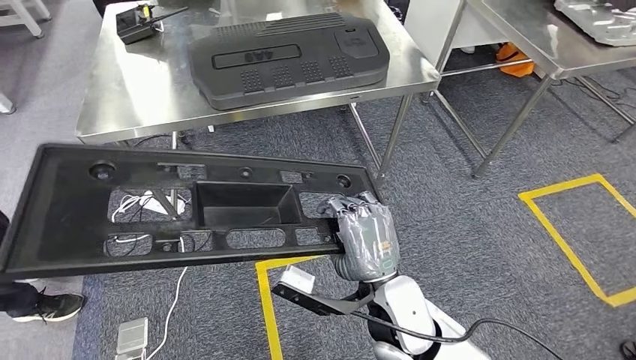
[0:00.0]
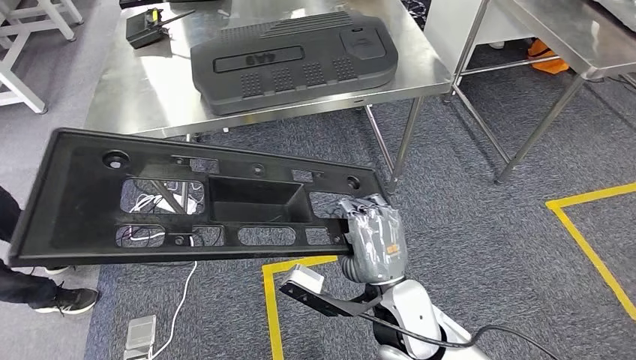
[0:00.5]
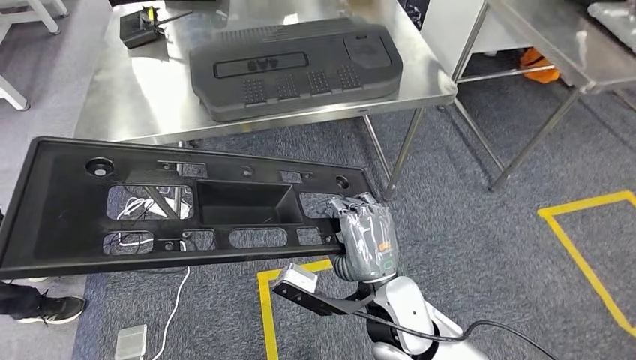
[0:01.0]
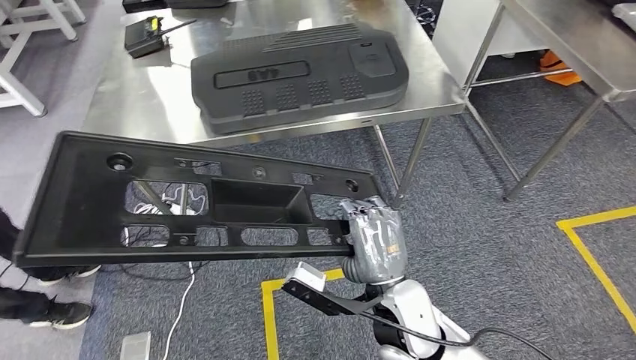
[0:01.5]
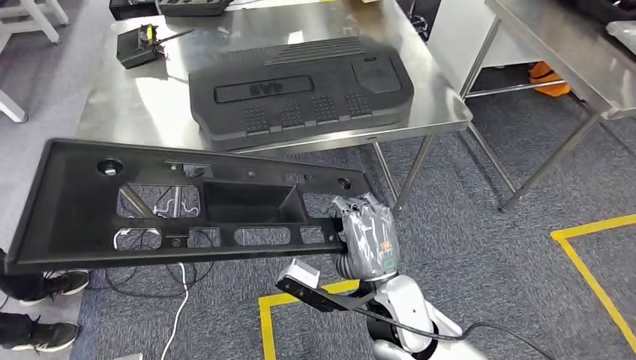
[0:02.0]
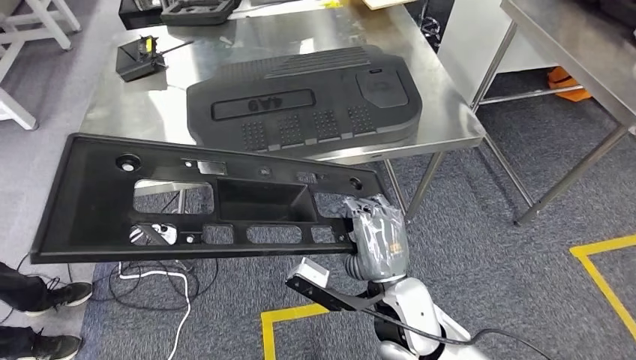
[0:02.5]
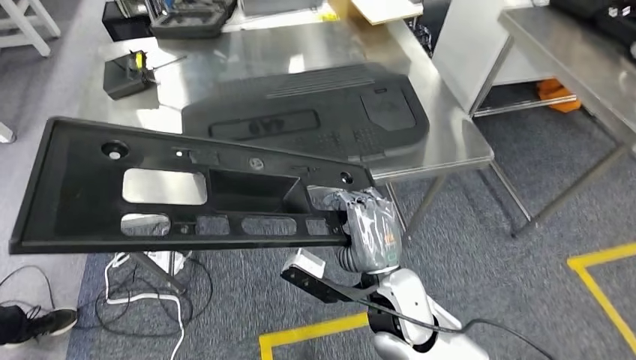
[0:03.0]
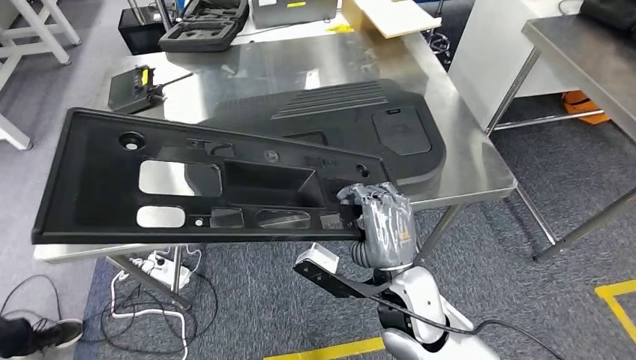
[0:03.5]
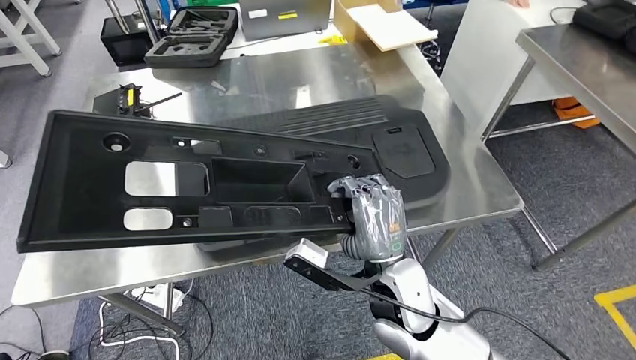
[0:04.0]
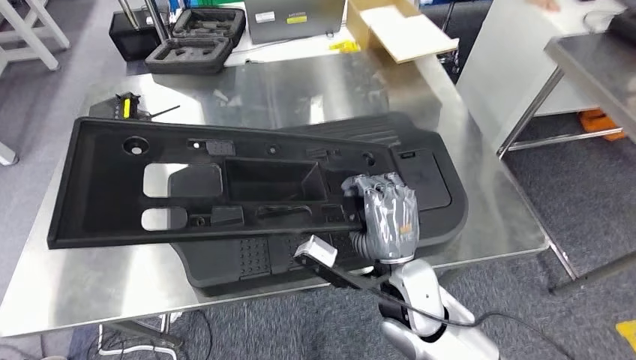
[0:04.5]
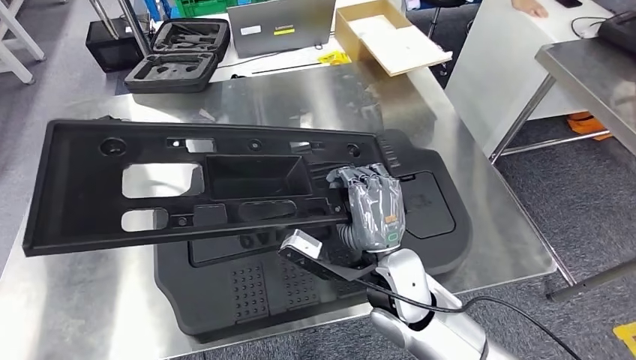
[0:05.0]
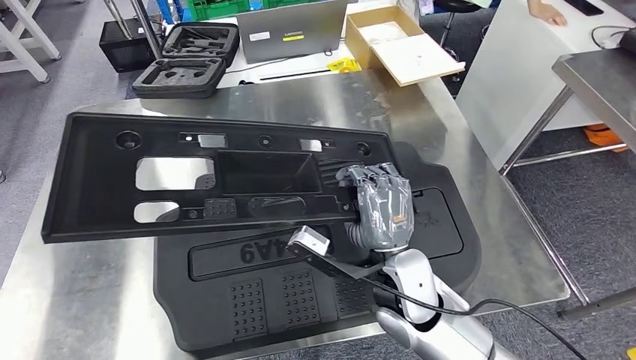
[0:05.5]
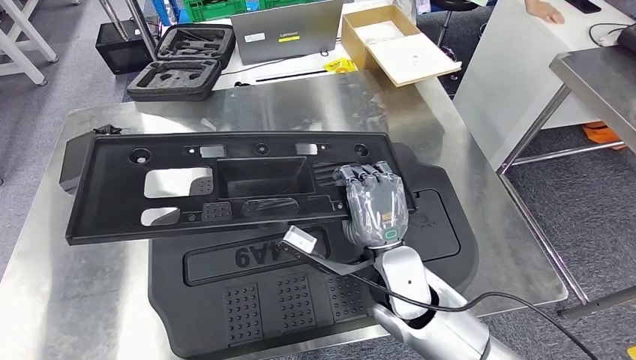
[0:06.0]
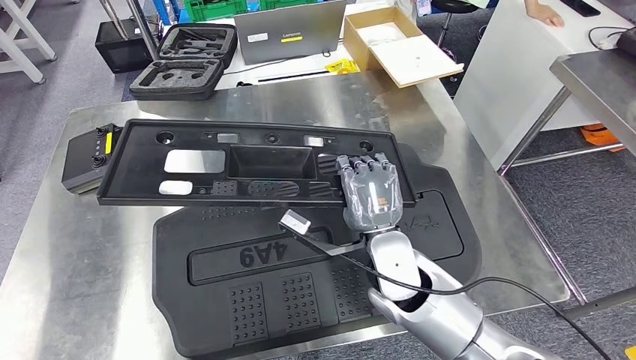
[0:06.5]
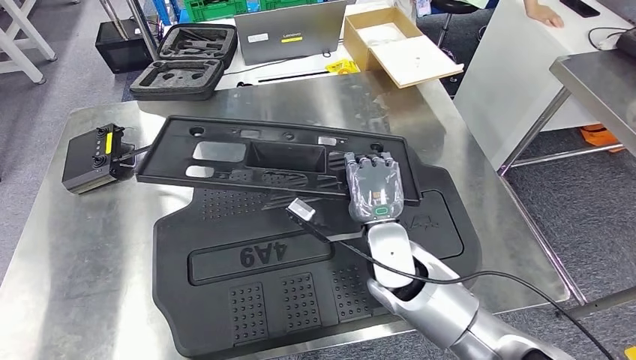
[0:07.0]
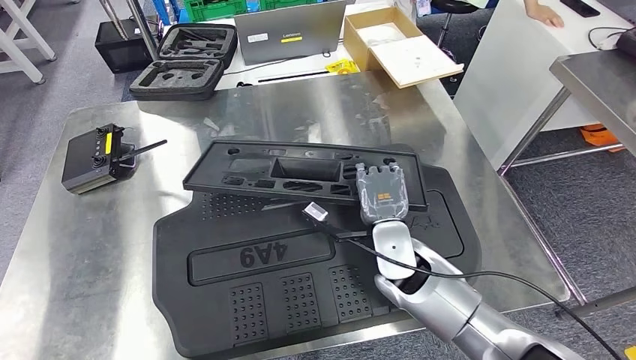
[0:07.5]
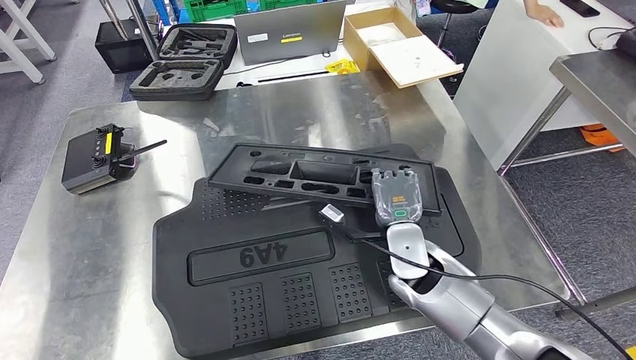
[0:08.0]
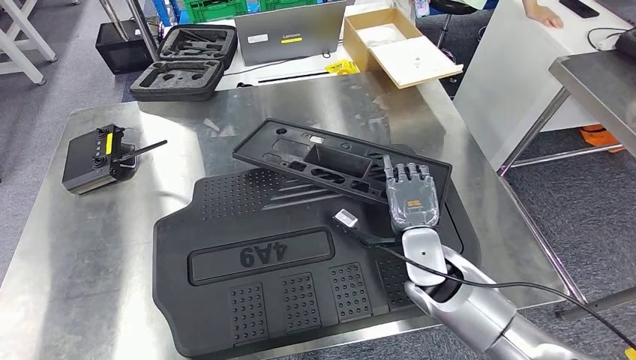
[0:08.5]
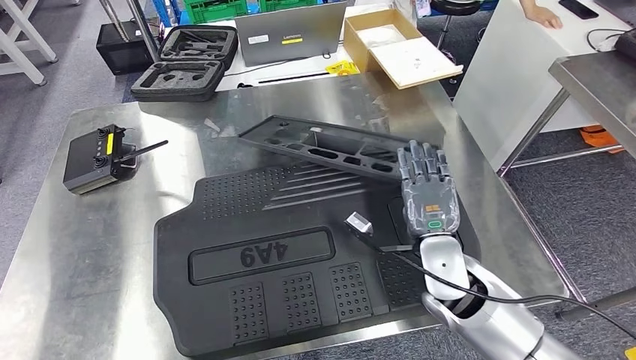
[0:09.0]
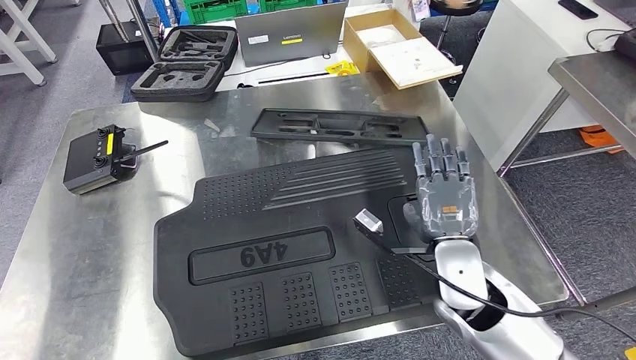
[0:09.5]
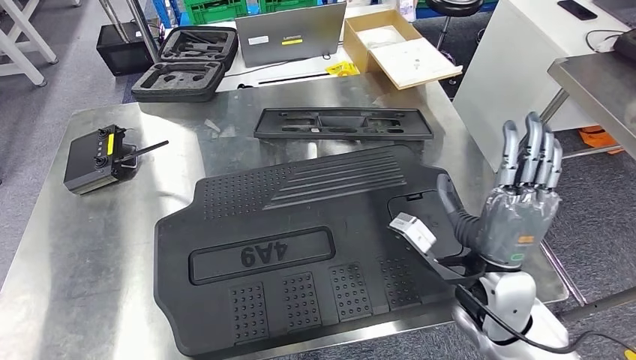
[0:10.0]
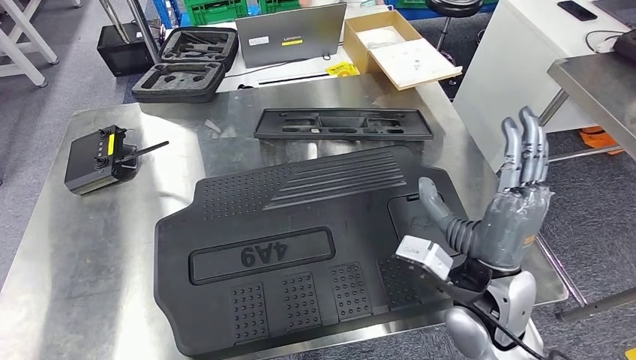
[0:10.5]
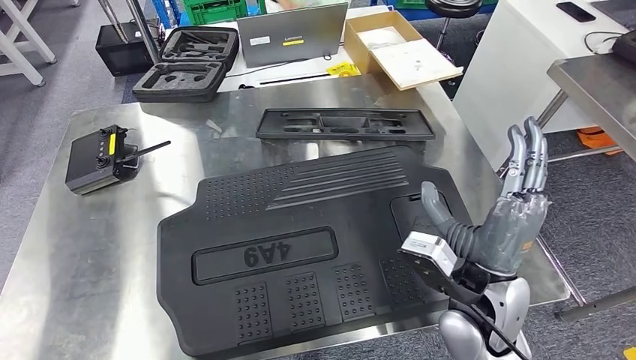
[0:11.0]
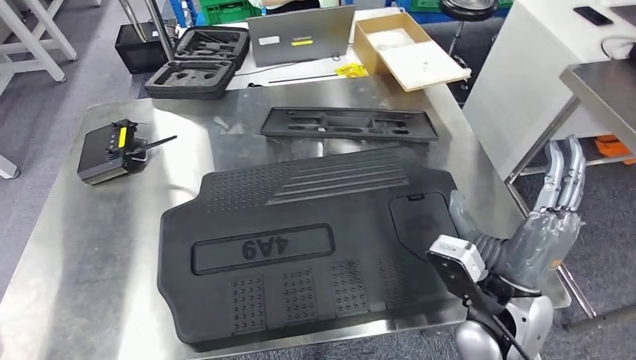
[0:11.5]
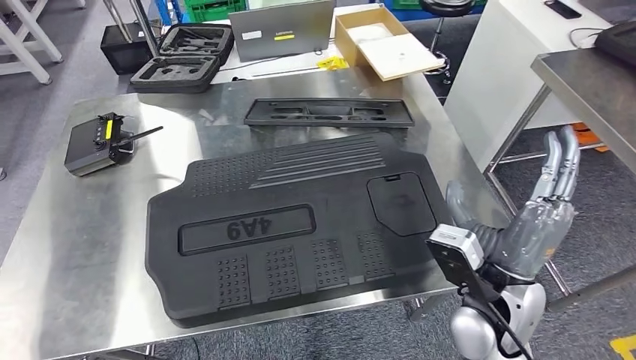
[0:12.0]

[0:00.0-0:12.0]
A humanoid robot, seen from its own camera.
Step, 0:00.0 to 0:04.0: Move the large material to the workbench.

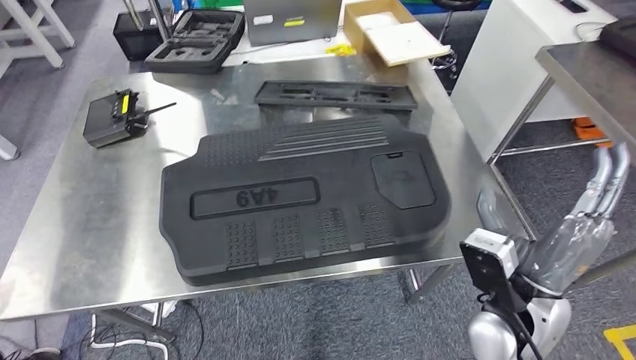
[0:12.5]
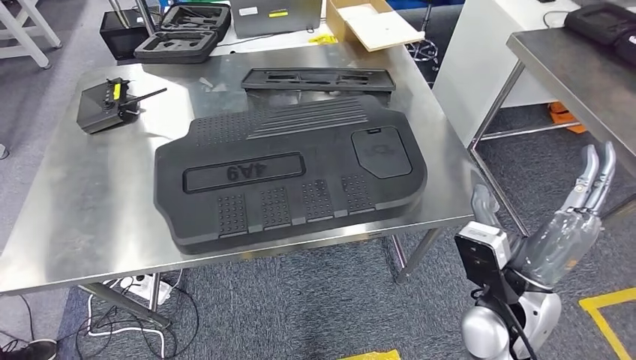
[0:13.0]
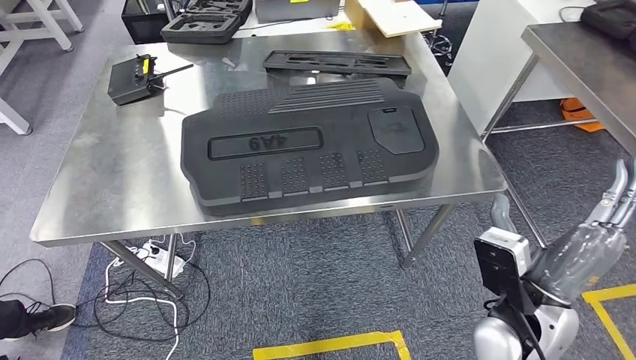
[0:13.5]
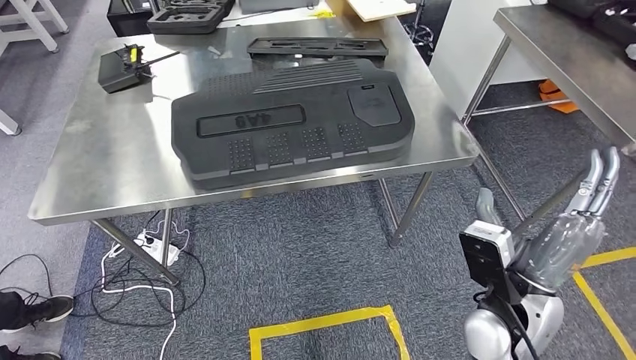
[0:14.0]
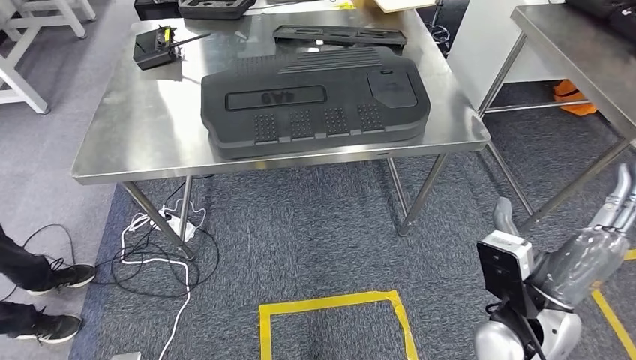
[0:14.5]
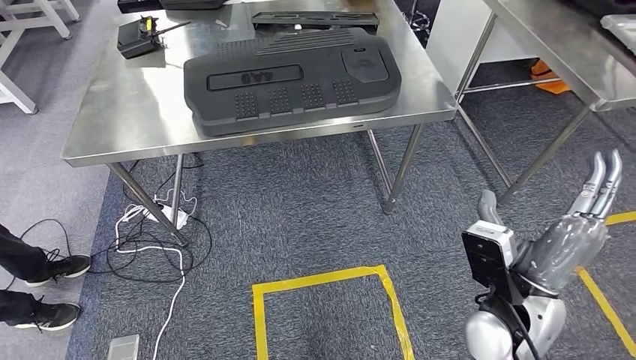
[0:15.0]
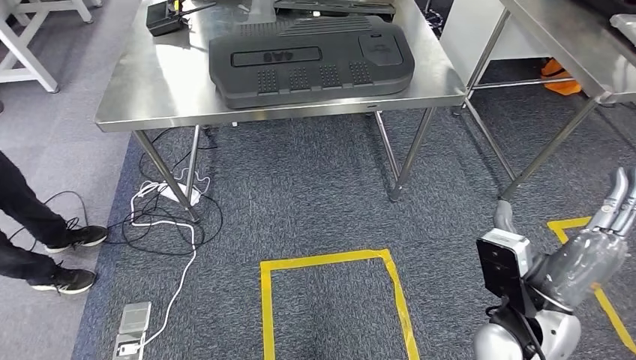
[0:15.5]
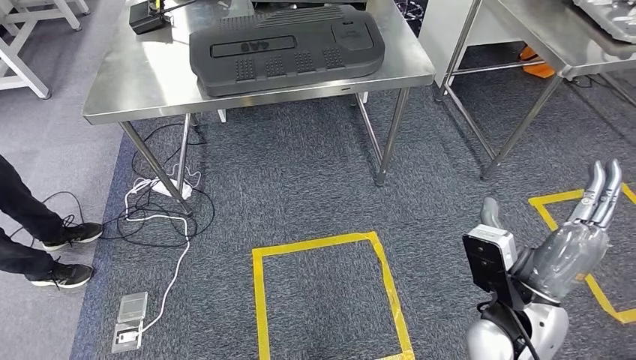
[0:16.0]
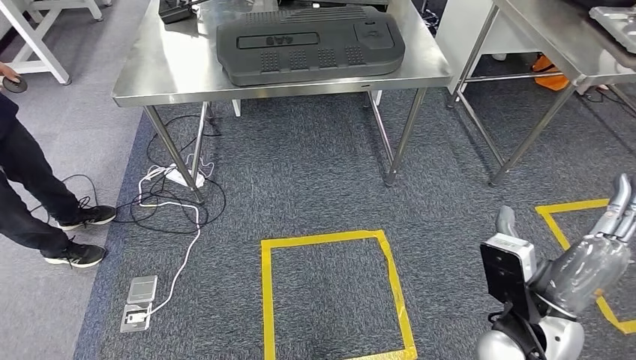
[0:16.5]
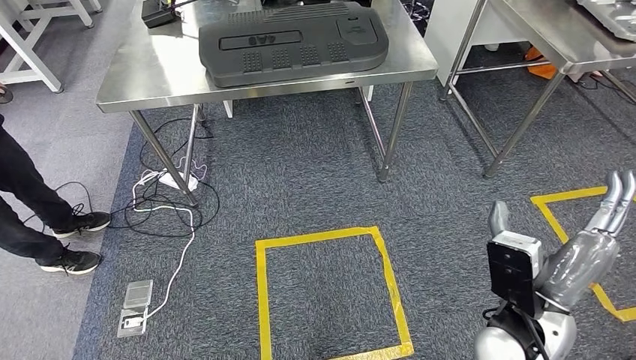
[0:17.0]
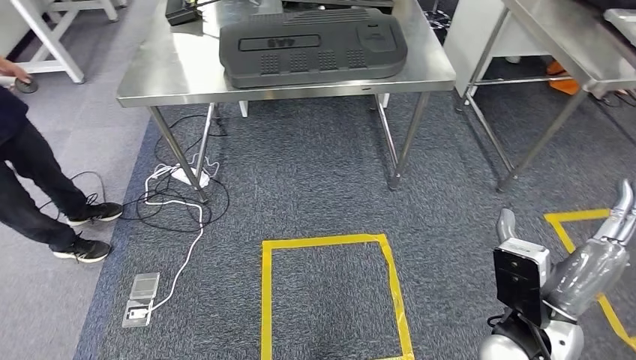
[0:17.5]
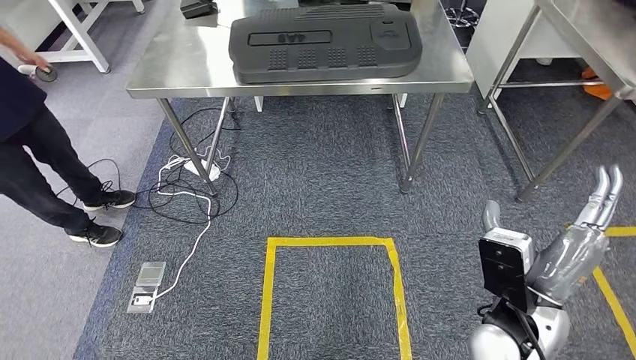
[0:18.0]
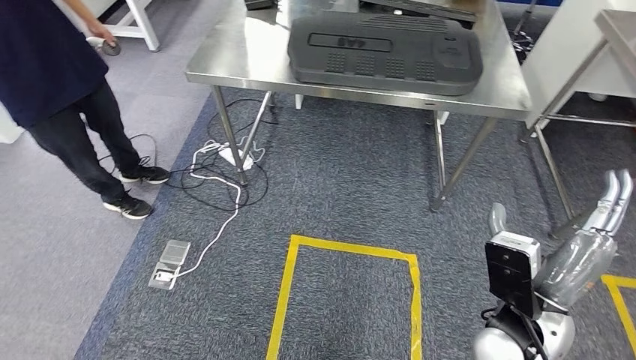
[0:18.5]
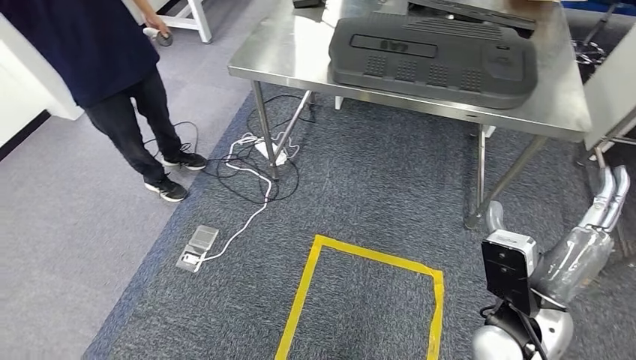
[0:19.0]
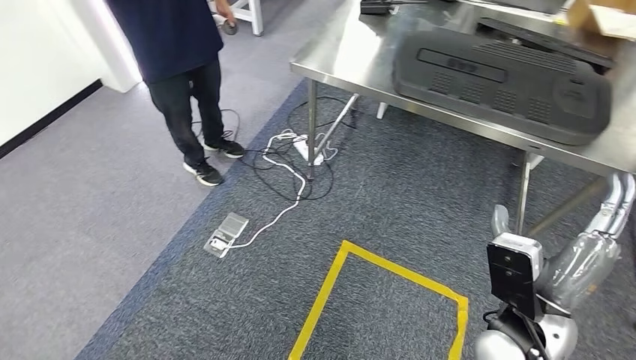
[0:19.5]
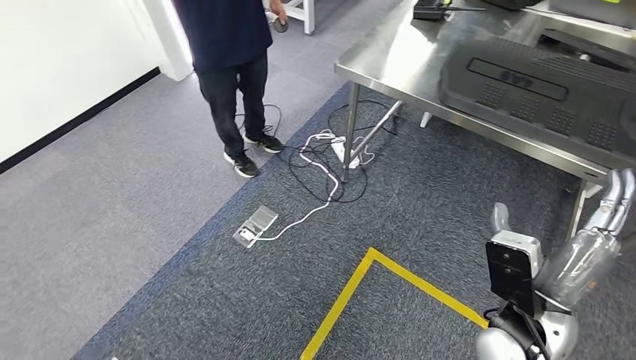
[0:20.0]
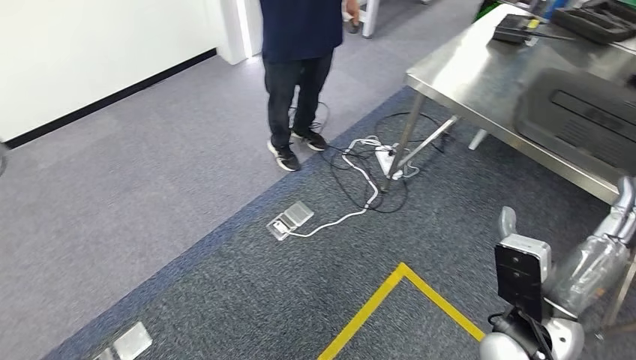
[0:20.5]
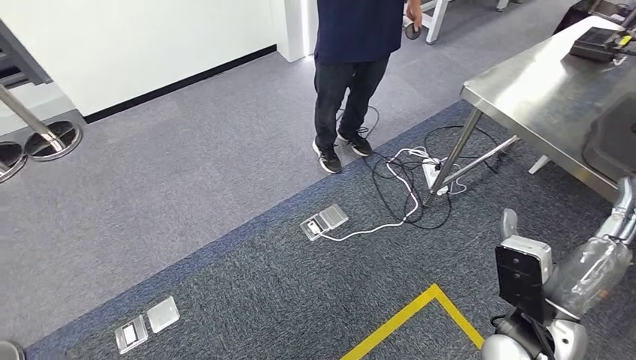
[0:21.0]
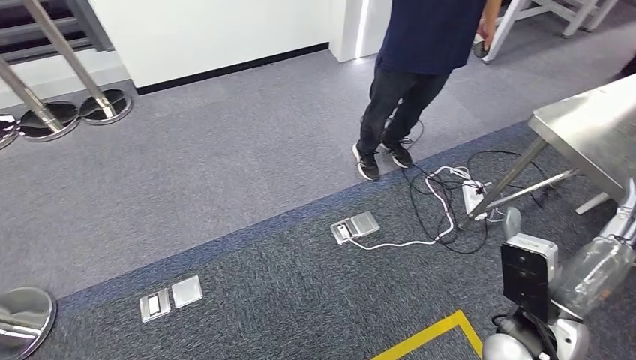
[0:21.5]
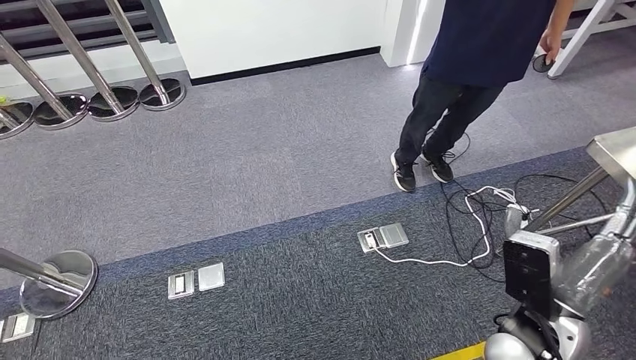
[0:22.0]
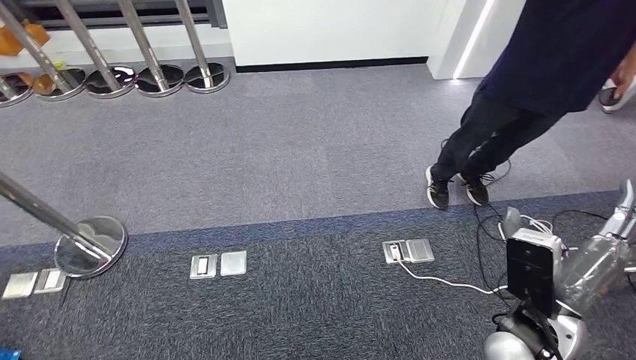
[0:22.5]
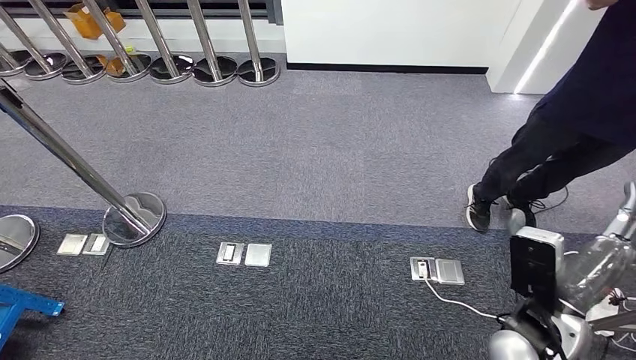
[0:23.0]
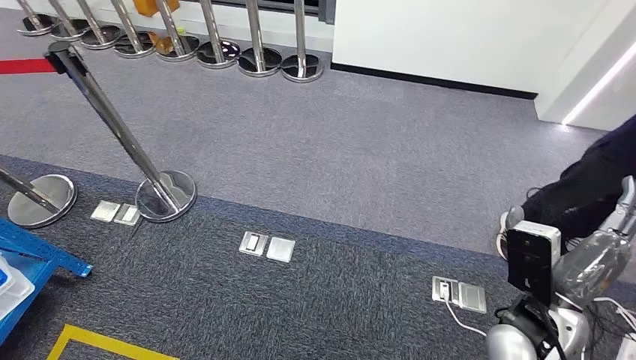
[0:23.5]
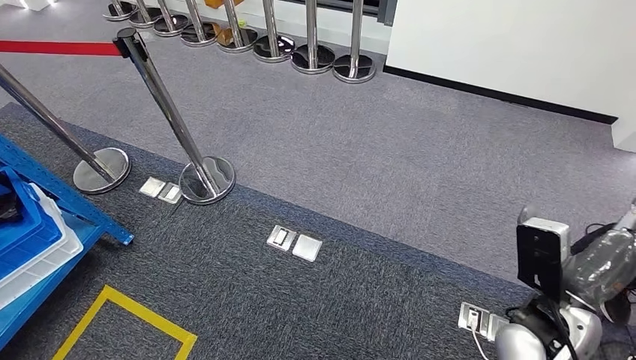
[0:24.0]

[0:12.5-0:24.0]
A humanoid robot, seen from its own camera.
Step, 0:12.5 to 0:15.0: Insert the large material into the corresponding slot on the workbench.
